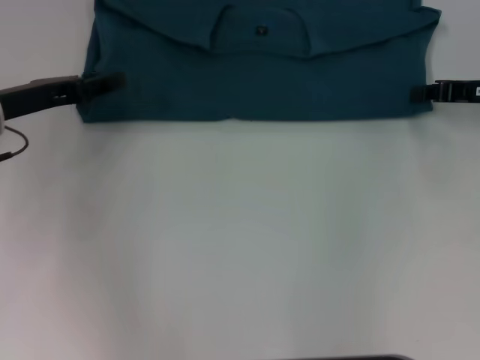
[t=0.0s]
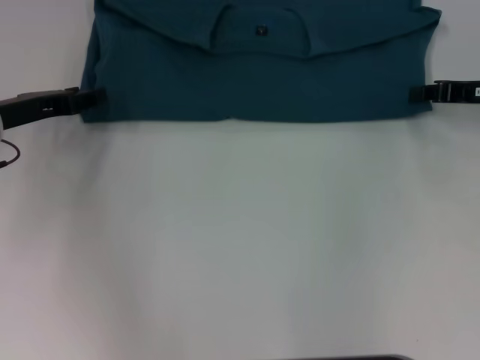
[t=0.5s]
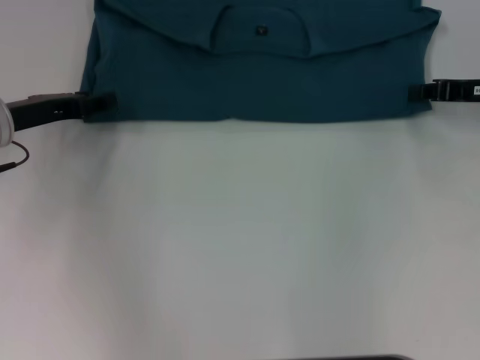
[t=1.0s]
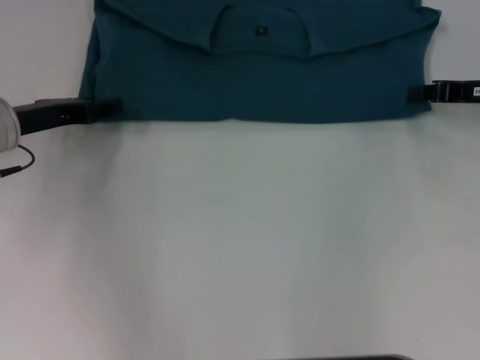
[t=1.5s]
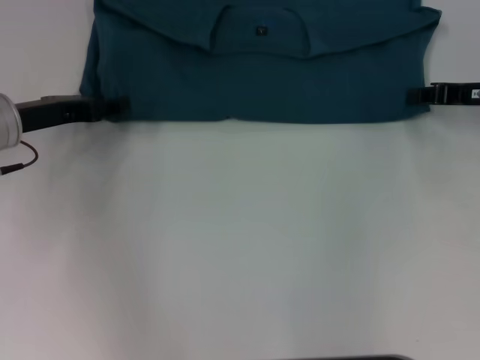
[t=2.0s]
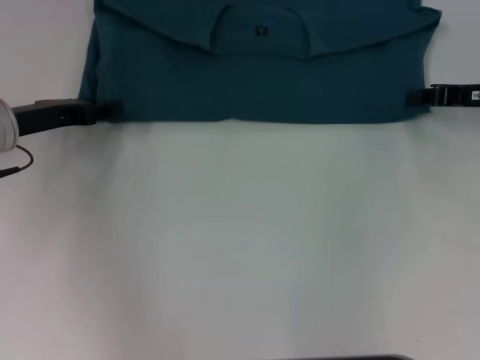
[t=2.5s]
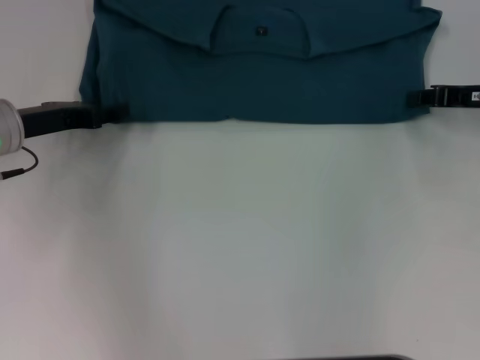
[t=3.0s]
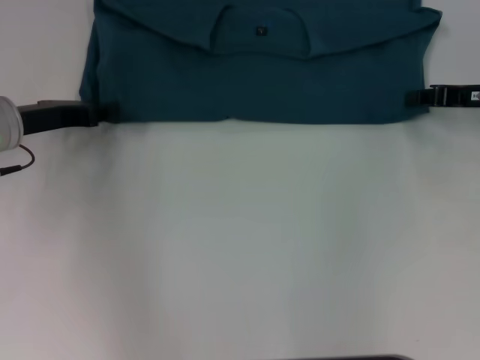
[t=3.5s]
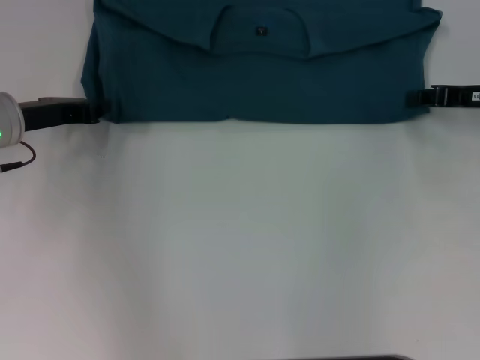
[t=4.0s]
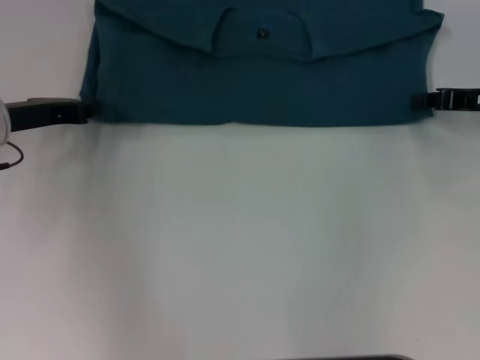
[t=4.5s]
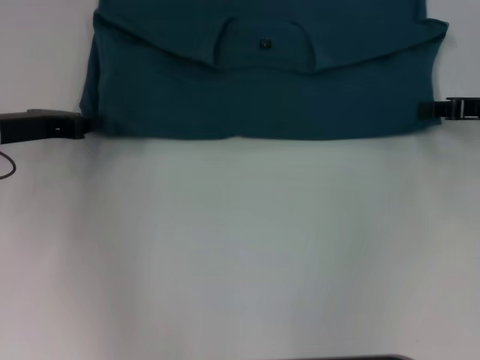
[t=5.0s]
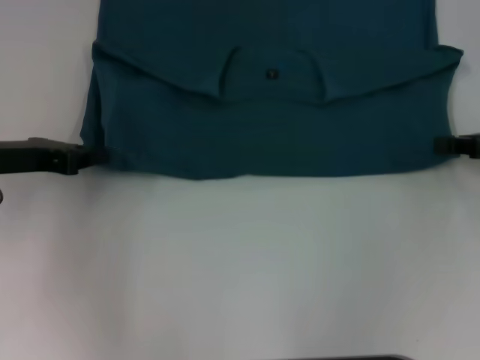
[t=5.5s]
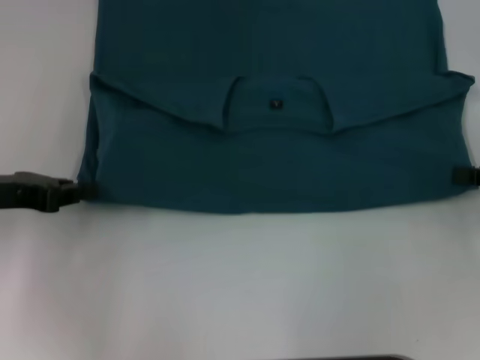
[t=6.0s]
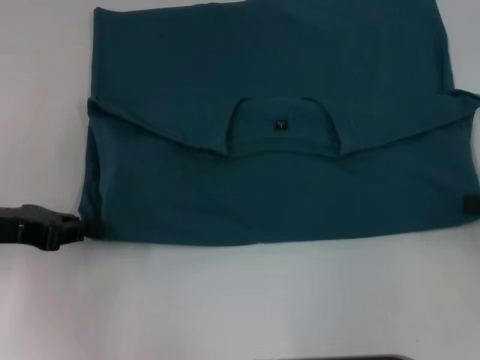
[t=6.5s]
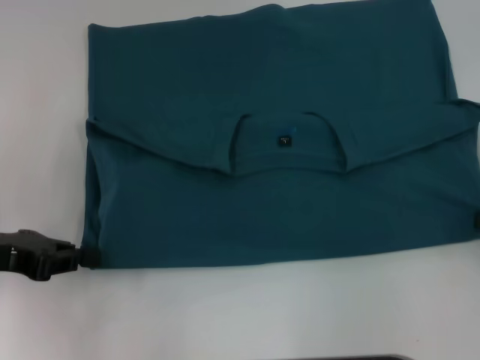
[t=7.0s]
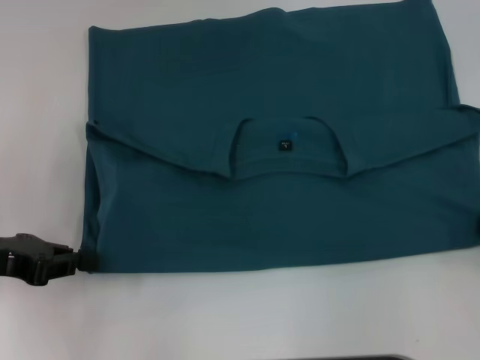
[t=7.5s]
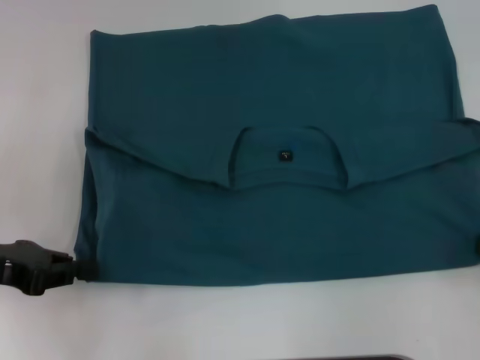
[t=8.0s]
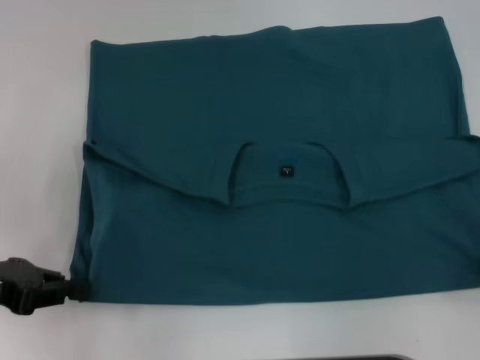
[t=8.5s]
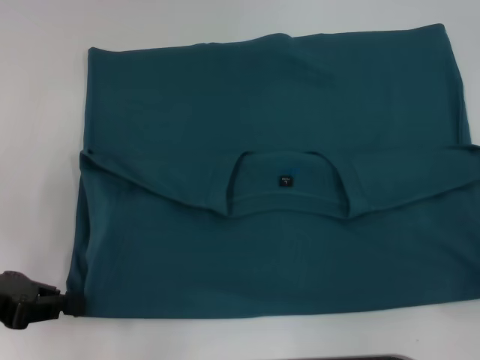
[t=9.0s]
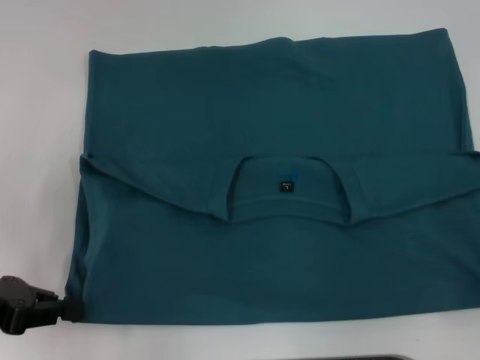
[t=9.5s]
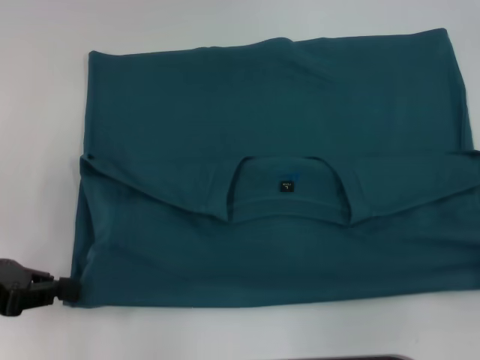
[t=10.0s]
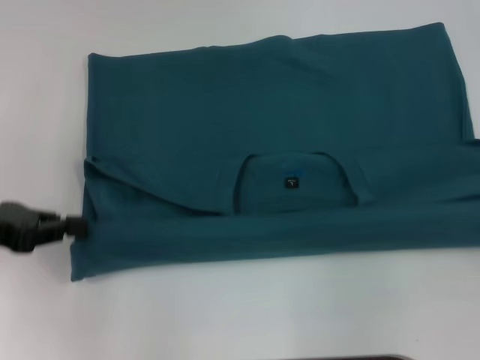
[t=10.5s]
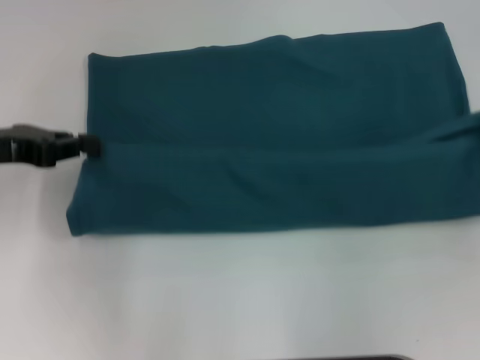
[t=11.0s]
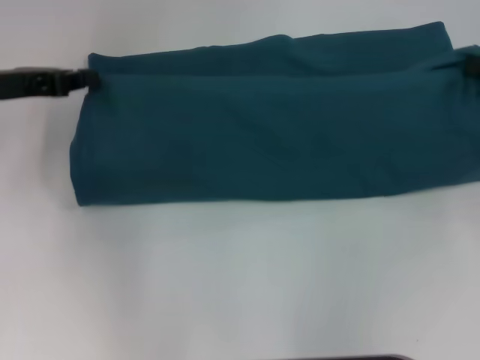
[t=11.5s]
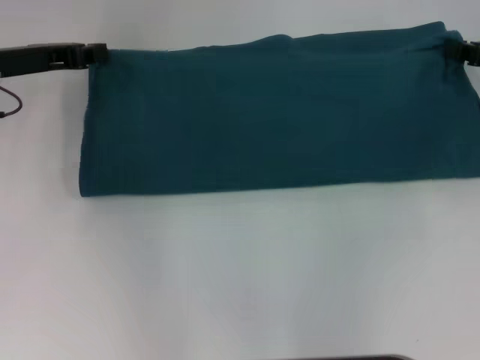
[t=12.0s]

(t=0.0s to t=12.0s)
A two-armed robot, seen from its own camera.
Step, t=0.0s - t=9.5s: Pull the clothes with your left hand.
Step, t=0.0s - t=9.5s: Pull the clothes with your right hand.
t=0.0s - t=2.0s: The grippers stay close to where they were, moving slightly.
t=4.0s - t=6.0s: The left gripper goes roughly 10 cm backward; the right gripper goes approximately 10 cm backward and to the right.
t=6.0s - t=8.0s: The right gripper heads backward, covering approximately 5 cm.
t=8.0s - t=10.0s: There are only small adjustments of the grippers.
t=10.0s - t=12.0s: The two grippers go some 15 cm forward.

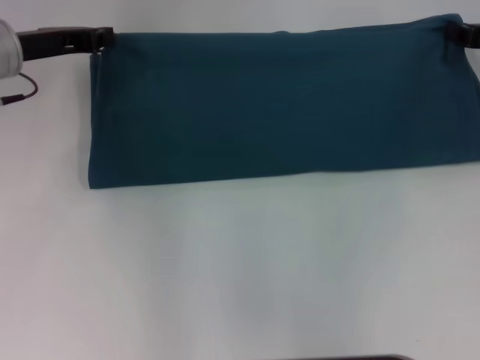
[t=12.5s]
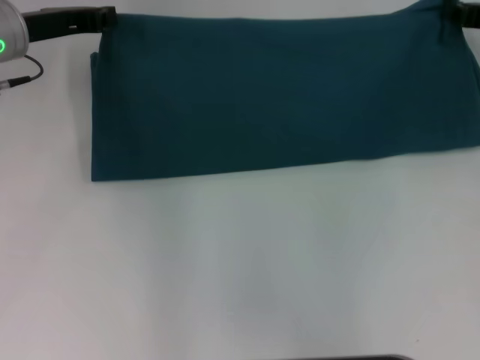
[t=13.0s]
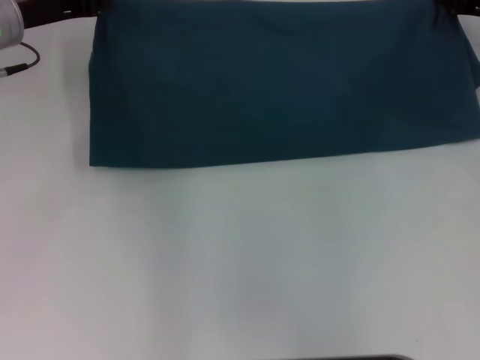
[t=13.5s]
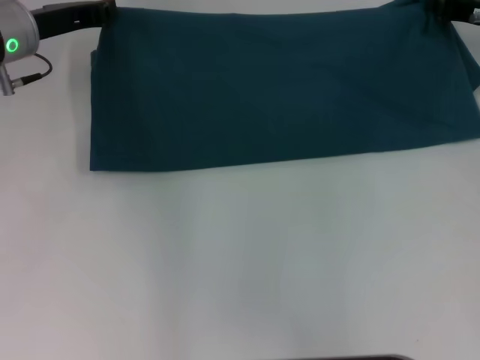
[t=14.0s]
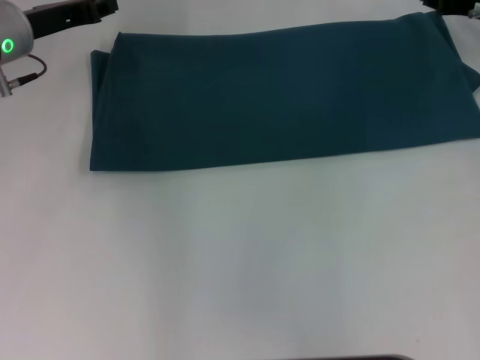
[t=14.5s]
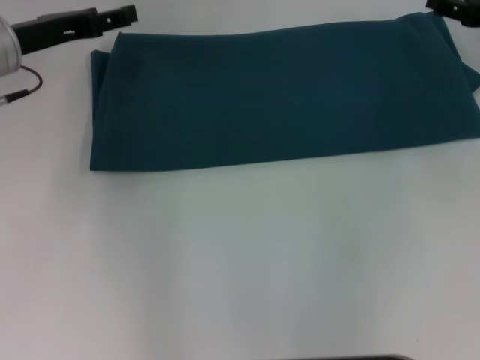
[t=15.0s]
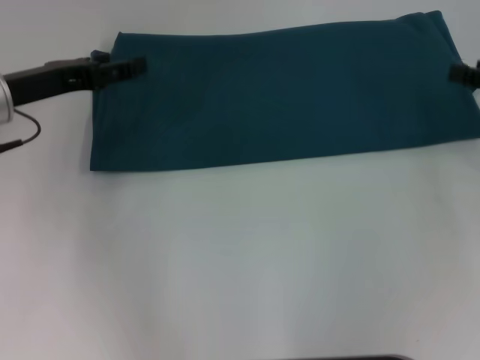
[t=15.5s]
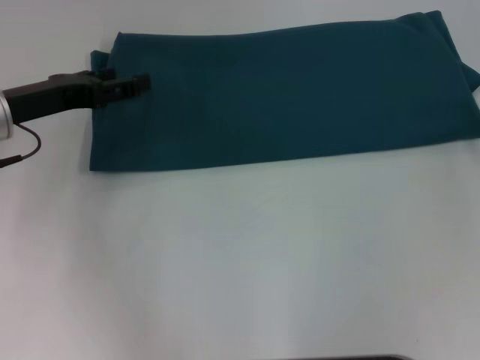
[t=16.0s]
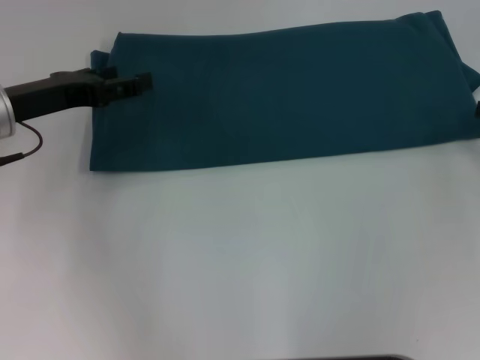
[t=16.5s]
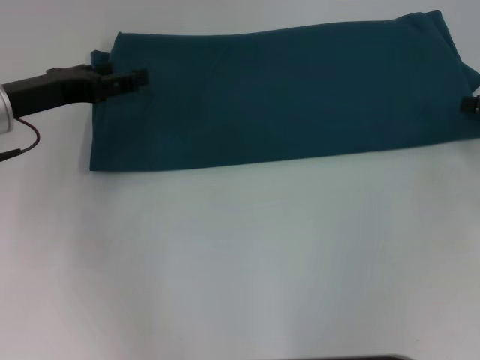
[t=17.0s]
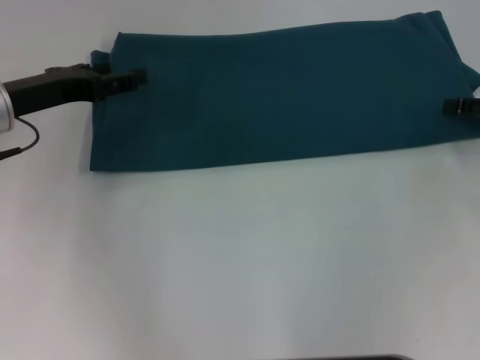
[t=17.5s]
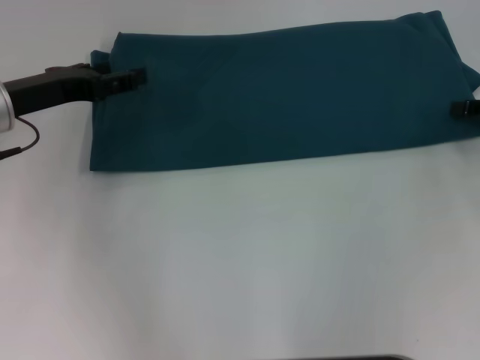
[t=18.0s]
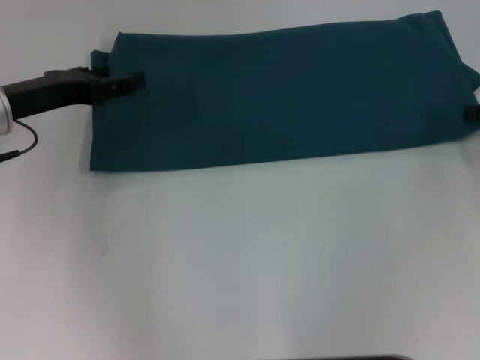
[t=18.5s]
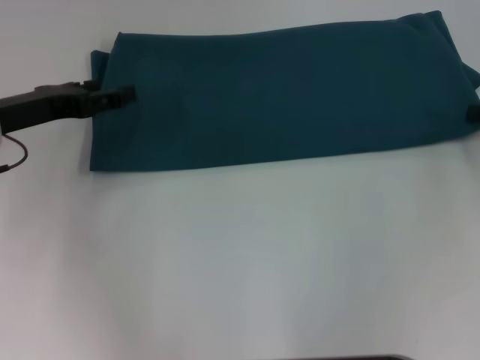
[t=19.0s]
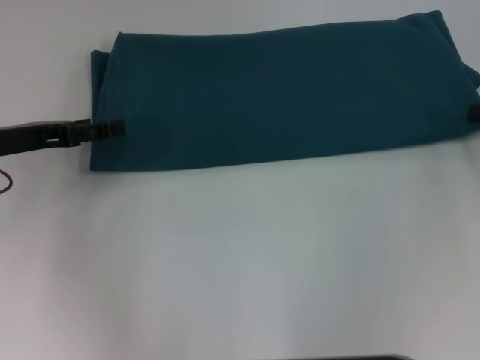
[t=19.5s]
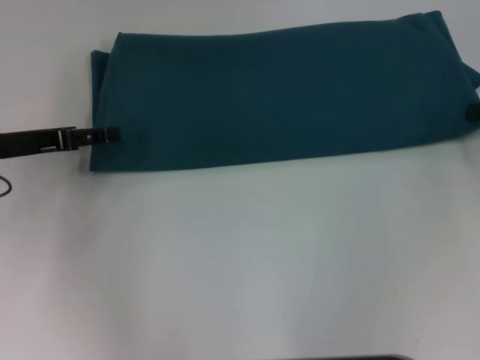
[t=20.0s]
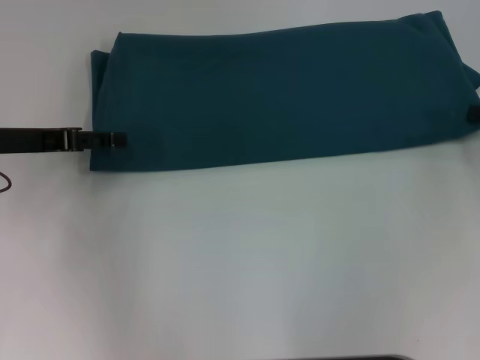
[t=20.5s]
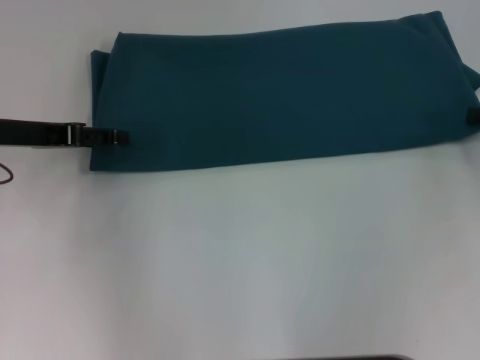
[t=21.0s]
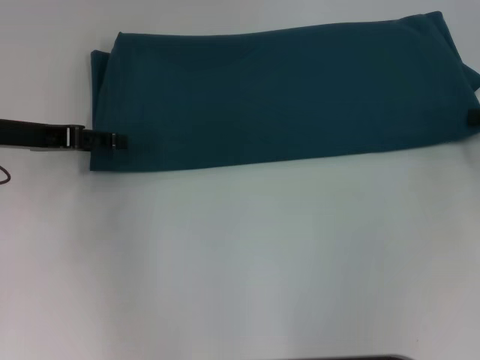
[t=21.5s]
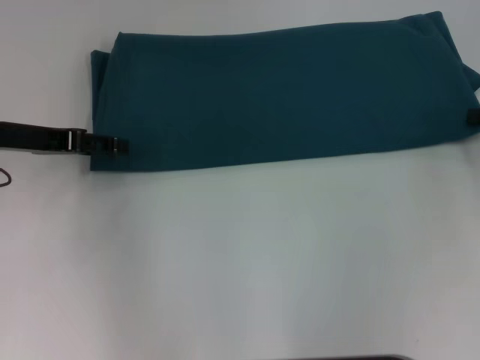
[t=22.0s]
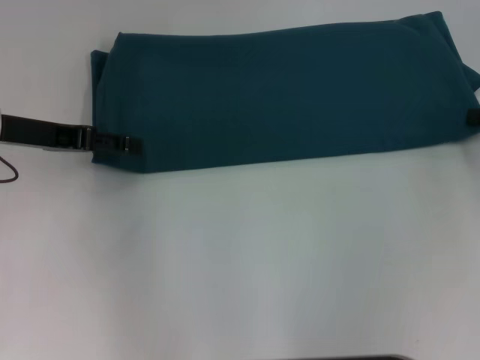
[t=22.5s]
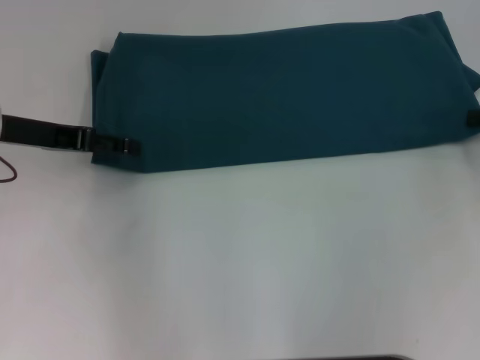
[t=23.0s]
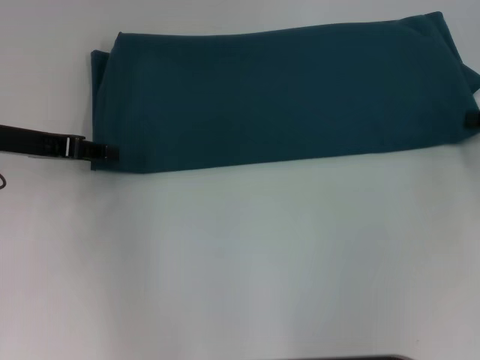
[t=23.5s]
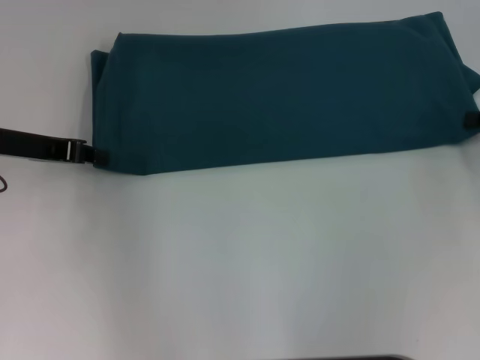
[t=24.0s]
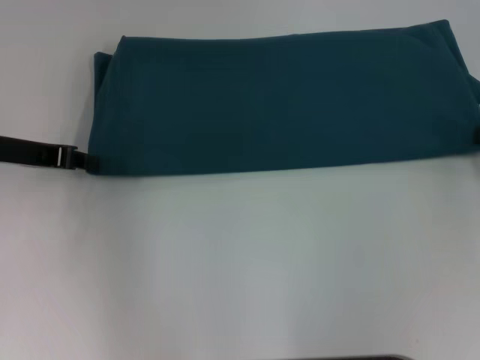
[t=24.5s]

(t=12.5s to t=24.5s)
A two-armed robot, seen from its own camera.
t=12.5s - t=14.5s: The right gripper ends up roughly 5 cm from where it was.
t=14.5s - t=16.5s: The left gripper heads backward, covering approximately 10 cm, and opens up. The right gripper heads backward and to the right, covering approximately 15 cm, and opens.
t=20.5s - t=22.5s: The grippers make only small movements.
t=22.5s - t=24.5s: The left gripper closes.

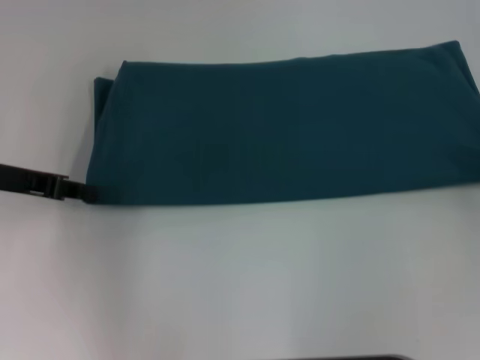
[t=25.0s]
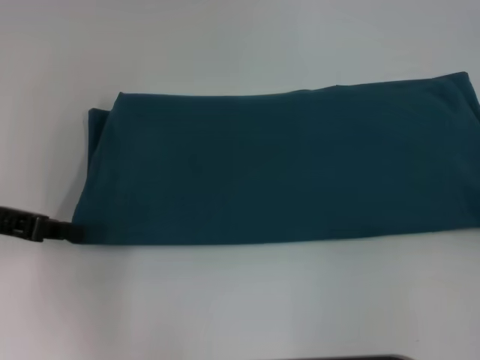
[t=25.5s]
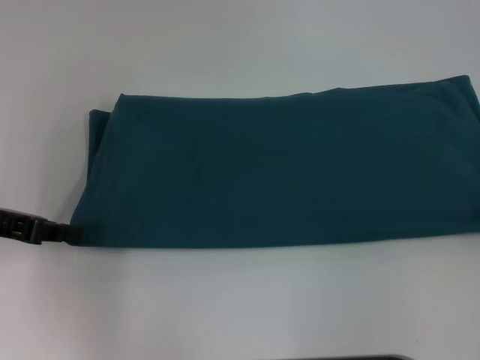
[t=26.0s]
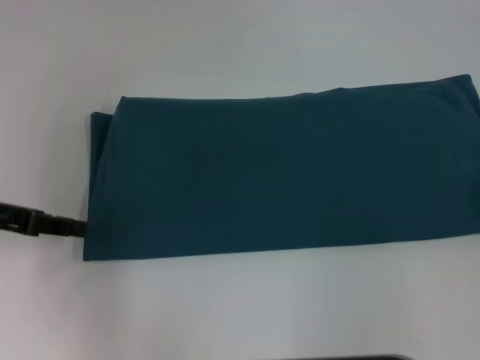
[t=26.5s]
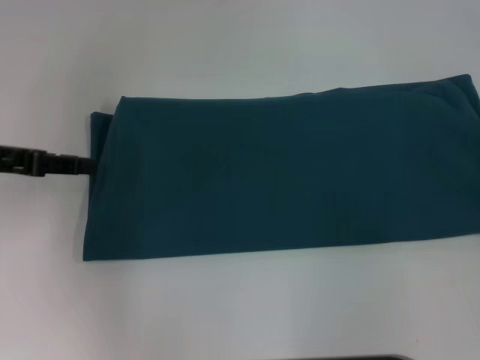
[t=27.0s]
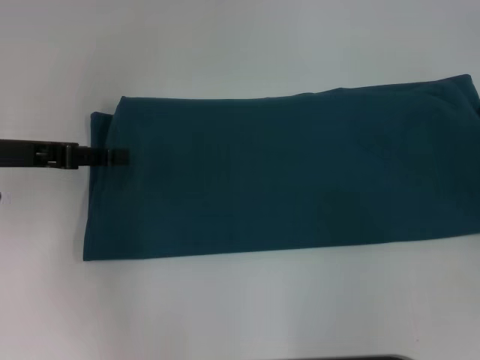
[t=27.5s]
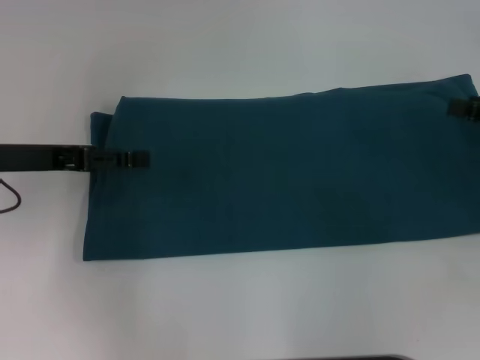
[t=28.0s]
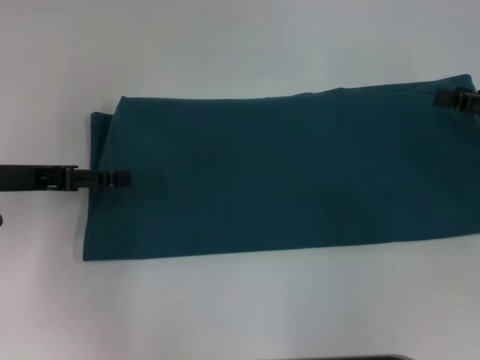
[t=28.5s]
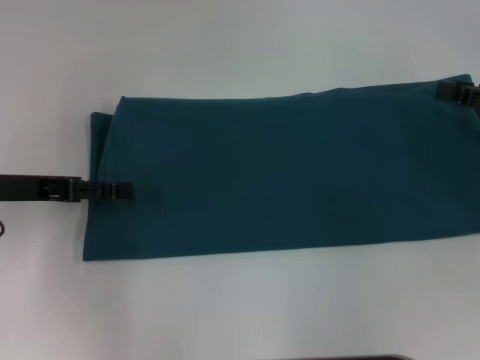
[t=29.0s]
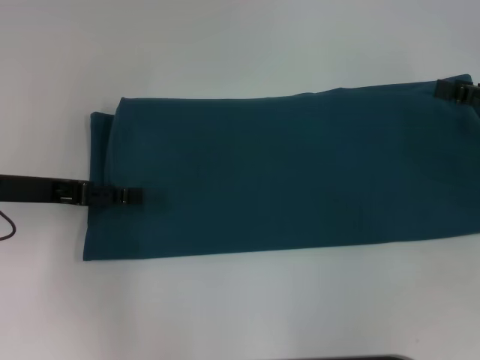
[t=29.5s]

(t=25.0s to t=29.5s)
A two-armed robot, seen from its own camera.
t=25.0s - t=27.0s: The left gripper opens up, while the right gripper opens up.
t=27.0s - t=29.5s: The left gripper changes place by some 5 cm, and opens up.
